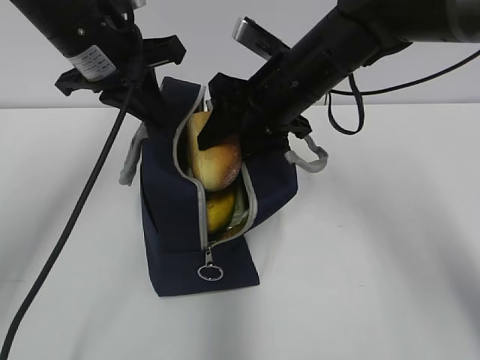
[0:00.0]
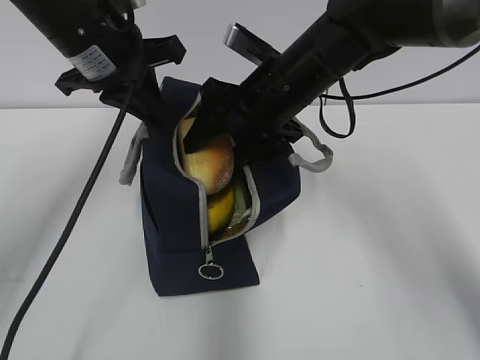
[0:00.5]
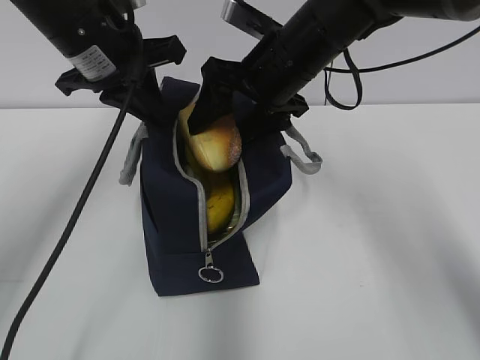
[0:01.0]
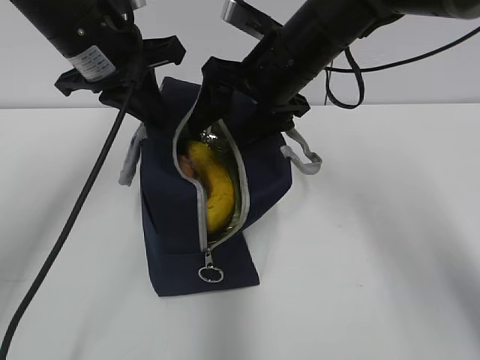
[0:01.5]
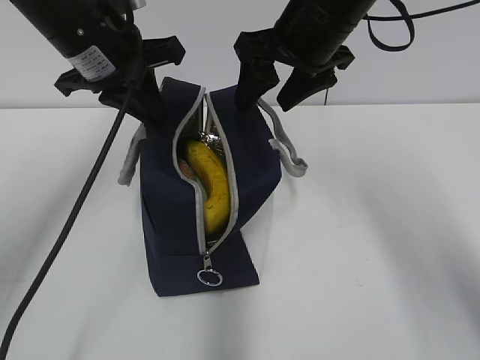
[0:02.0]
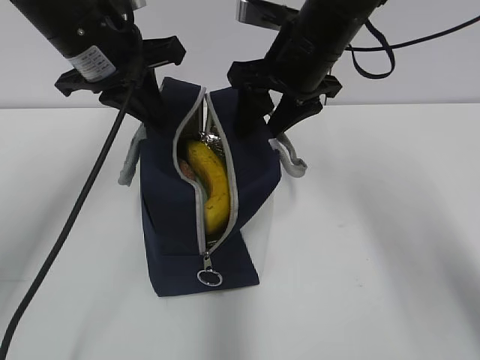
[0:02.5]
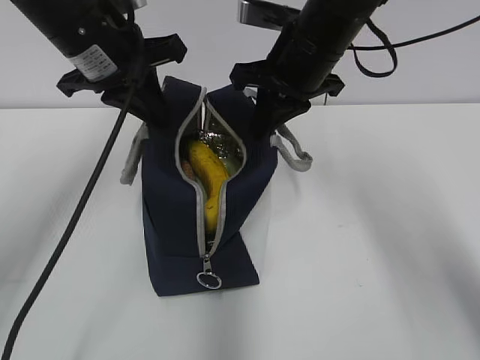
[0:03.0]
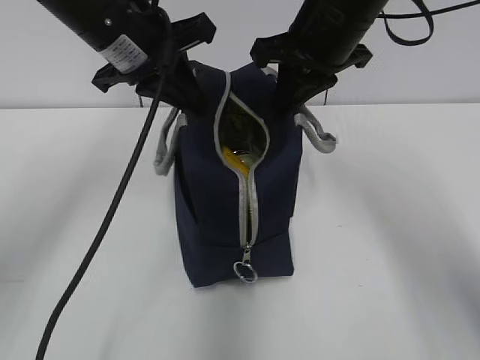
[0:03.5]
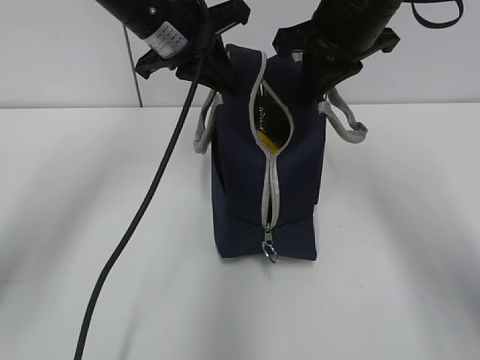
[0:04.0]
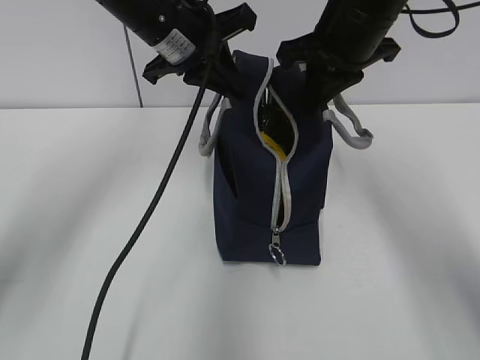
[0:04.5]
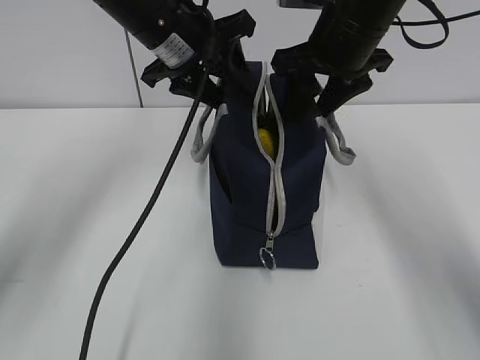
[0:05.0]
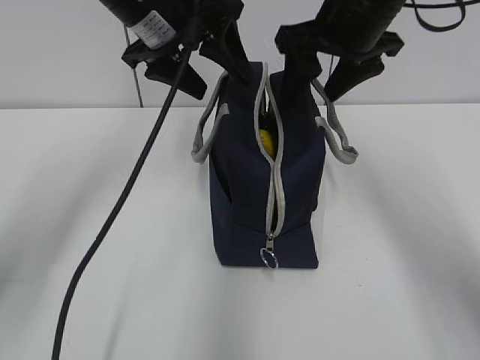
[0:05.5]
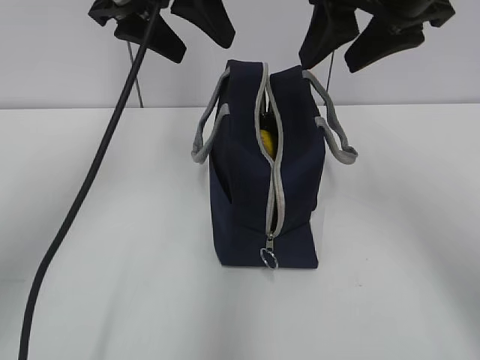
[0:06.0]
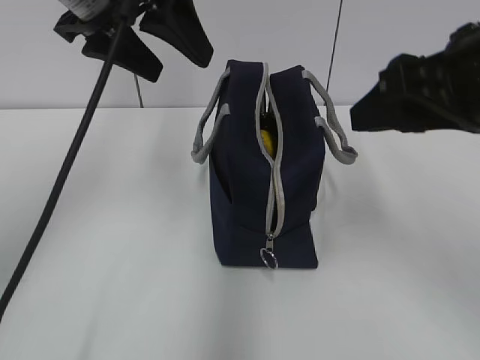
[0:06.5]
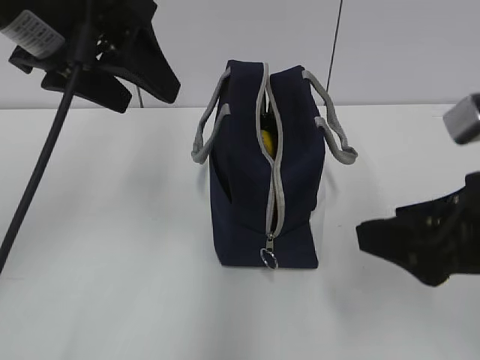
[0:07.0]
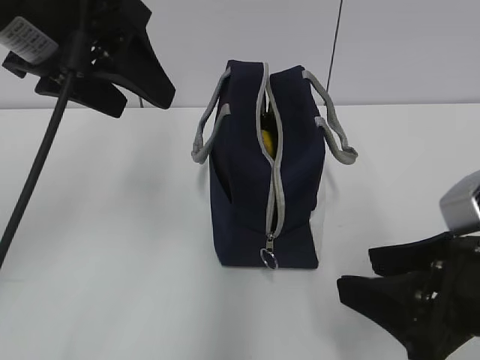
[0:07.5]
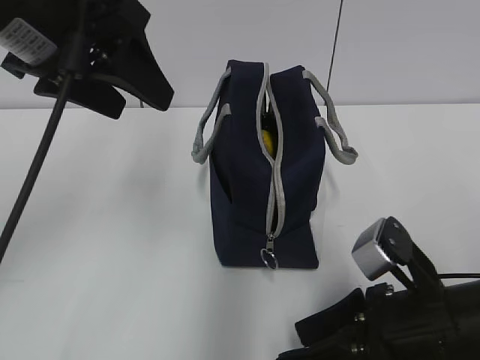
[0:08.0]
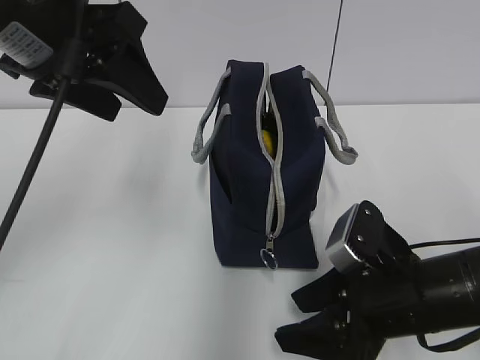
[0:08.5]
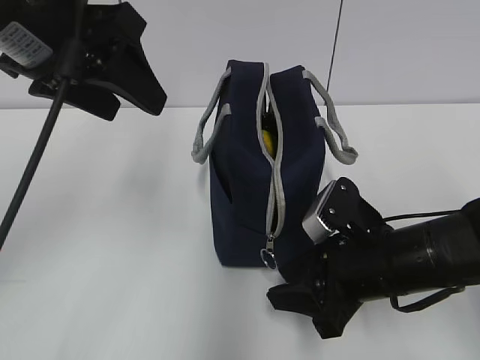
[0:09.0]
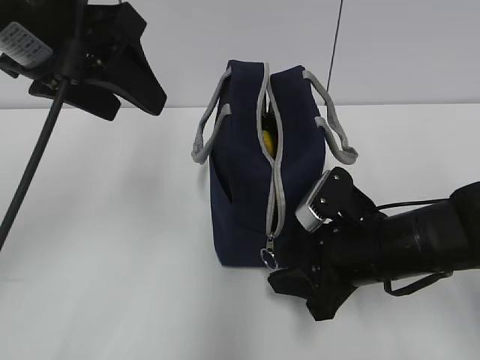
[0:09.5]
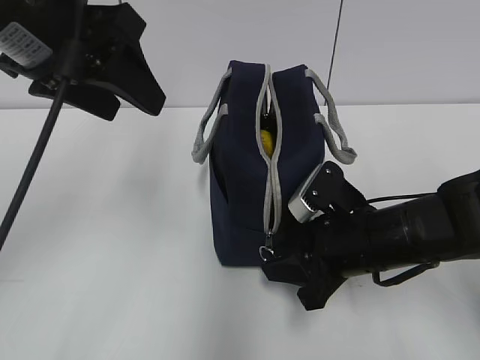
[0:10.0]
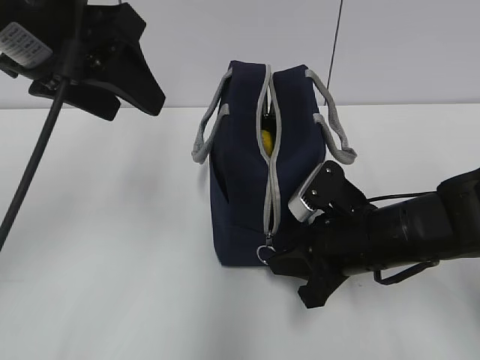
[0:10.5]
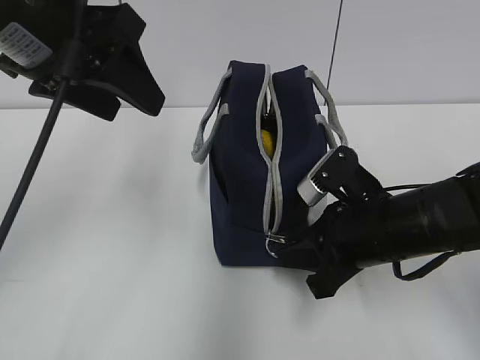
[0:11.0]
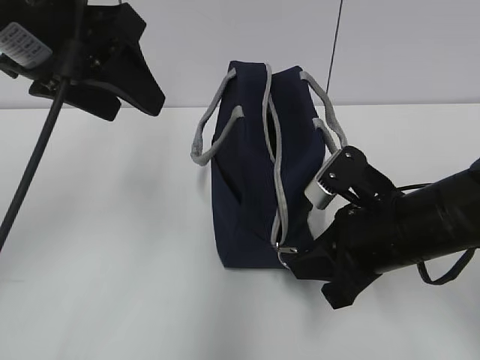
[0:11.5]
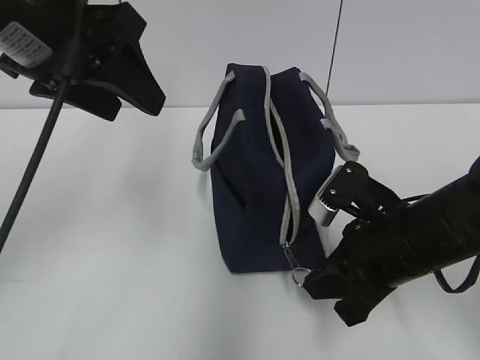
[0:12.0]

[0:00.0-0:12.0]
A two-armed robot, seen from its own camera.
Step, 0:02.0 to 0:03.0: Grab the lunch bag with your right hand.
Step, 0:03.5 to 0:05.0: Move the lunch bag to the right.
0:00.0 to 0:02.0: The right gripper is displaced upward by some 5 cm.
0:02.0 to 0:04.0: The left gripper goes some 5 cm to the right. Meanwhile the right gripper closes its fingers.
0:04.0 to 0:06.0: The right gripper is displaced backward by approximately 5 cm, and opens its fingers; the left gripper goes some 5 cm upward, and opens its fingers.
0:06.0 to 0:08.0: The left gripper moves backward, approximately 10 cm; the right gripper travels downward and backward by about 30 cm.
0:08.0 to 0:10.0: The right gripper moves forward, roughly 10 cm, and closes up.
0:10.0 to 0:12.0: There are only small adjustments of the grippers.

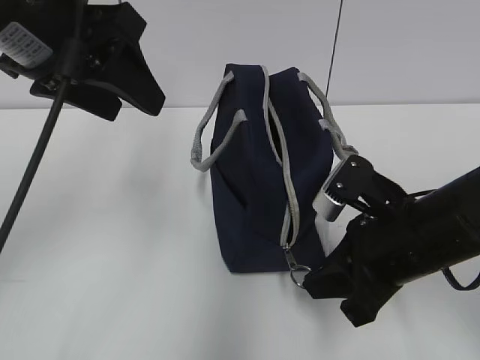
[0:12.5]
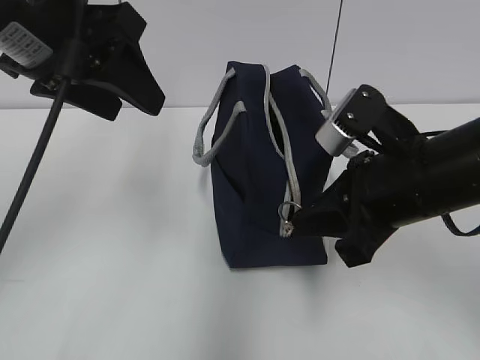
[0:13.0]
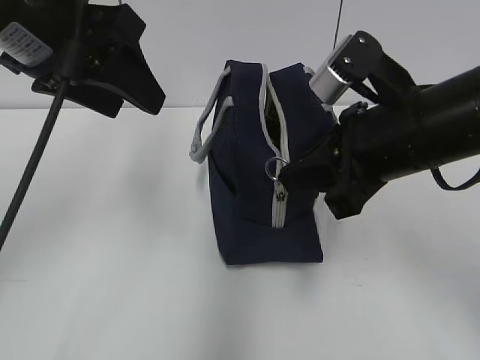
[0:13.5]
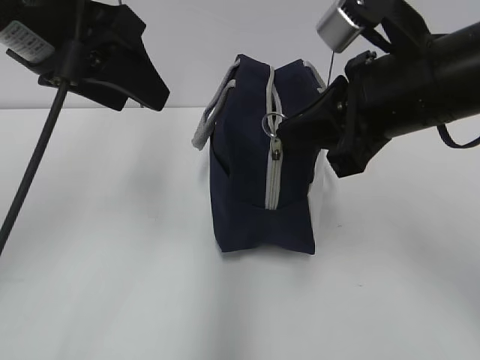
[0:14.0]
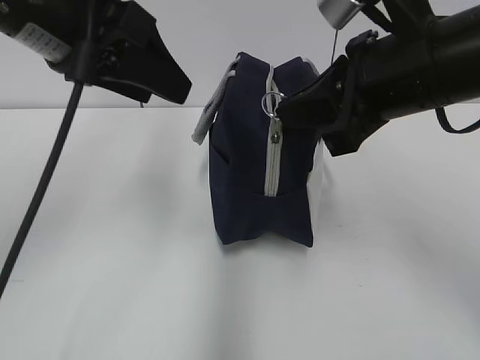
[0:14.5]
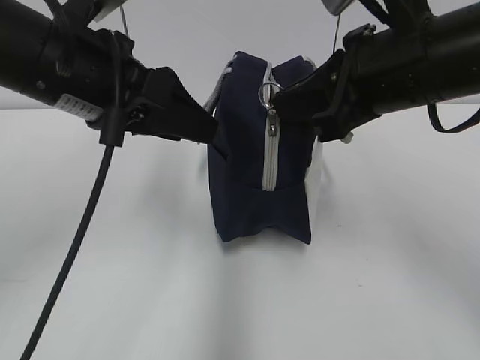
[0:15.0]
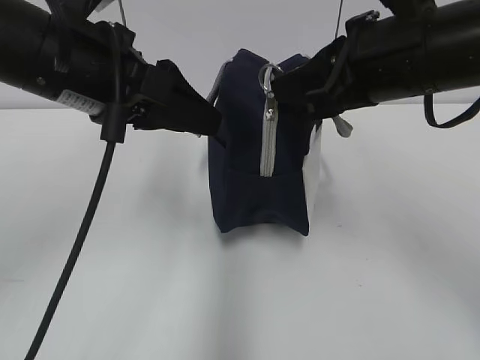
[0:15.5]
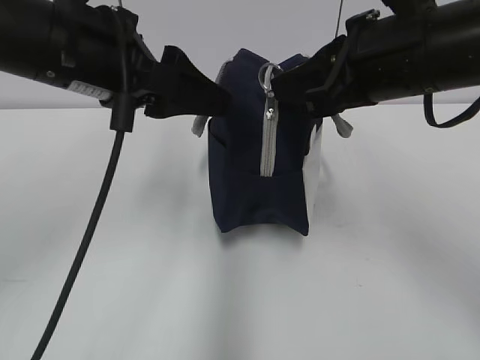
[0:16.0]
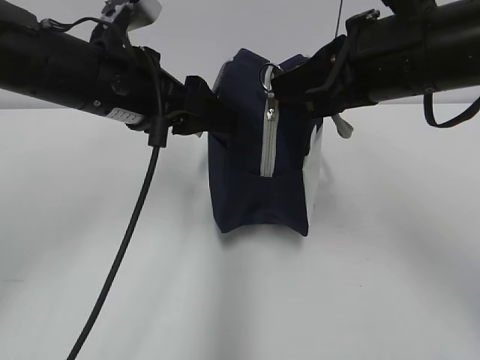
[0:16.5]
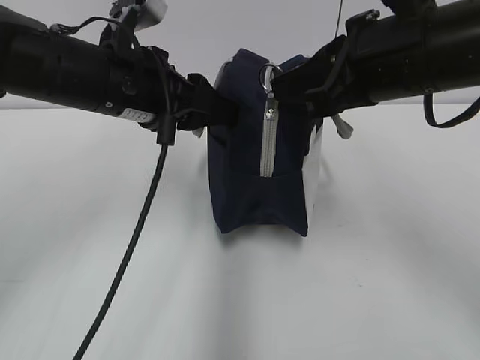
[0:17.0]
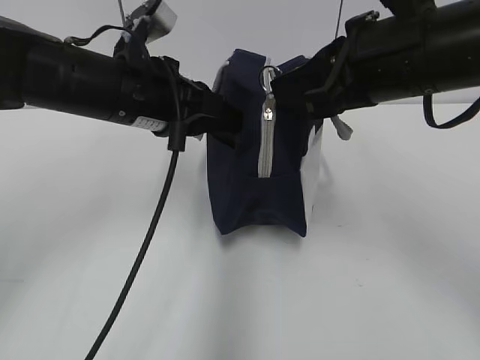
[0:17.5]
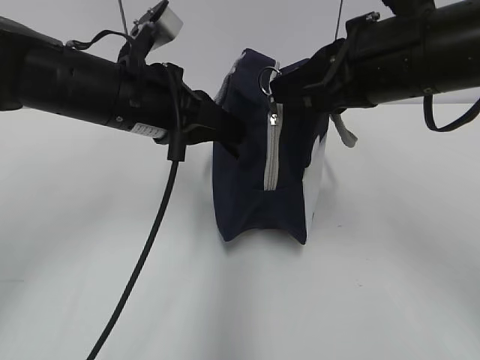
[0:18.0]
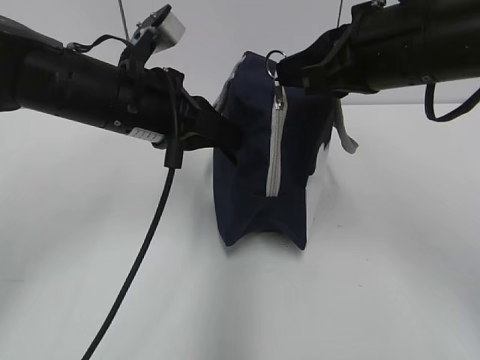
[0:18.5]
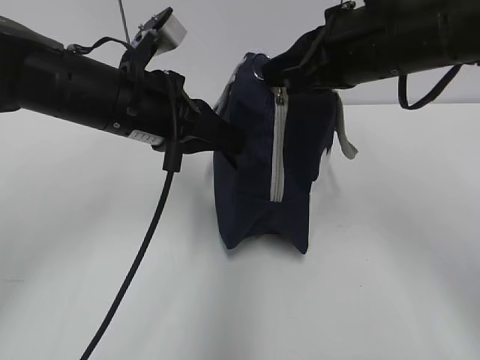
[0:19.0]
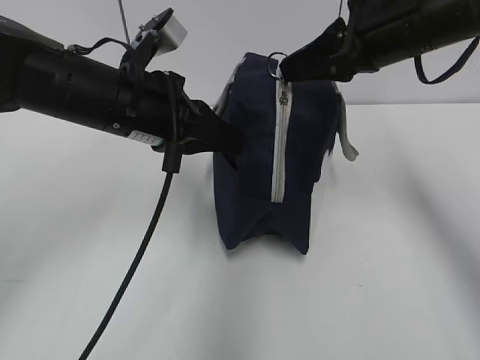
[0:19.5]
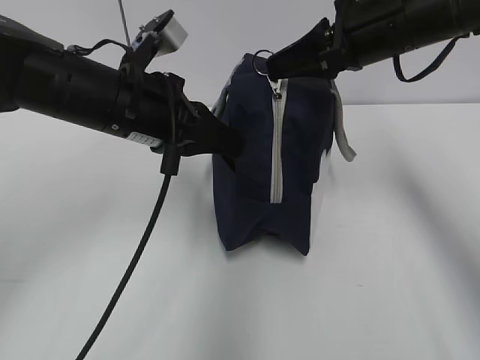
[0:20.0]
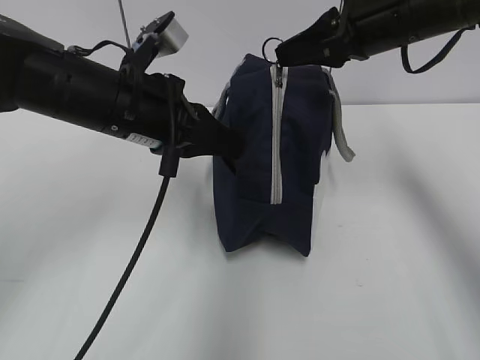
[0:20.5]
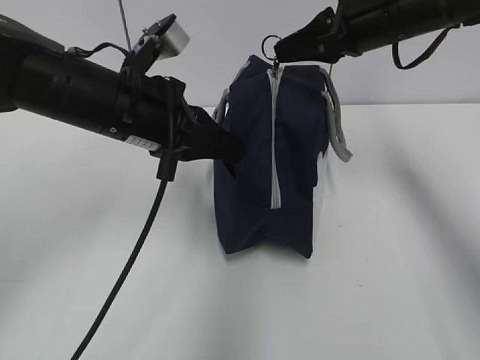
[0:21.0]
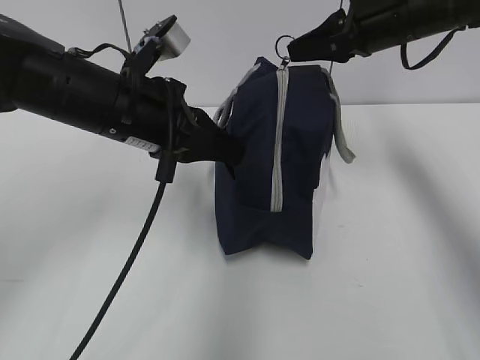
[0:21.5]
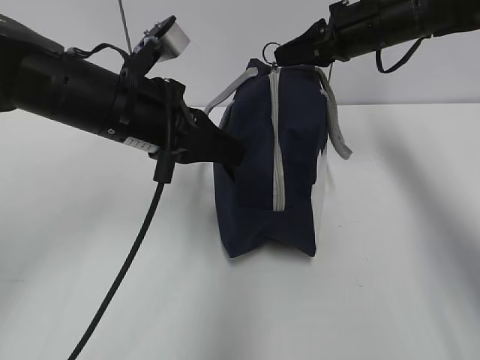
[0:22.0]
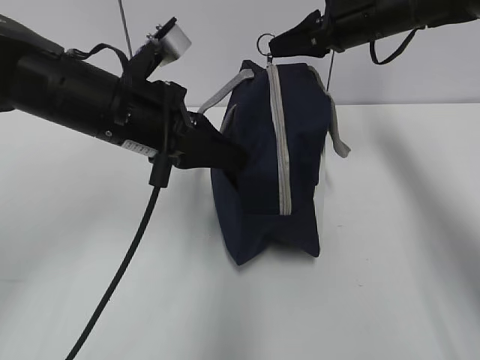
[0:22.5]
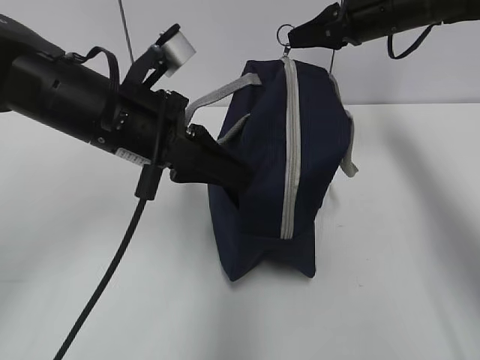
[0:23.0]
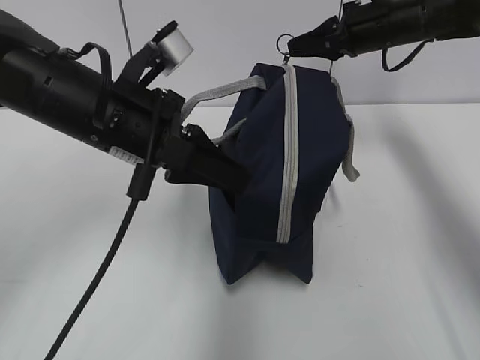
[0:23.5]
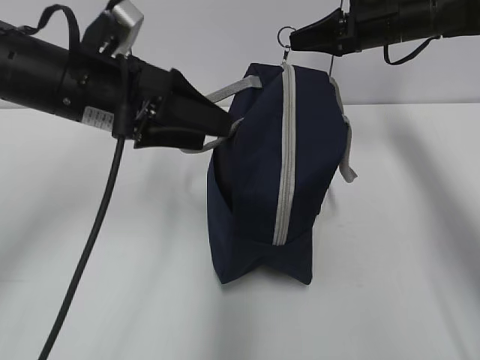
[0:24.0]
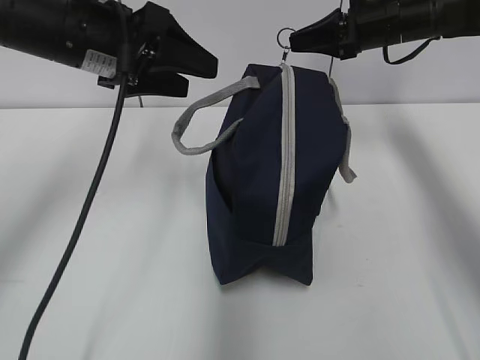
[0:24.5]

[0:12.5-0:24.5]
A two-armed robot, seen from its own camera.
Step, 0:12.5 to 0:23.5: Grab the lunch bag with your left hand.
0:12.5 to 0:14.5: The right gripper shifts roughly 15 cm upward.
0:14.5 to 0:16.5: The left gripper travels downward by about 10 cm.
0:16.5 to 0:18.5: The left gripper closes up.
0:18.5 to 0:20.5: The right gripper is displaced forward by roughly 10 cm.
0:20.5 to 0:22.5: The right gripper goes about 10 cm forward.
0:22.5 to 0:24.5: The left gripper goes some 5 cm forward and upward, and opens up.

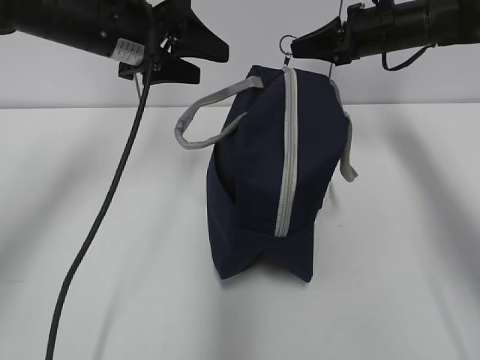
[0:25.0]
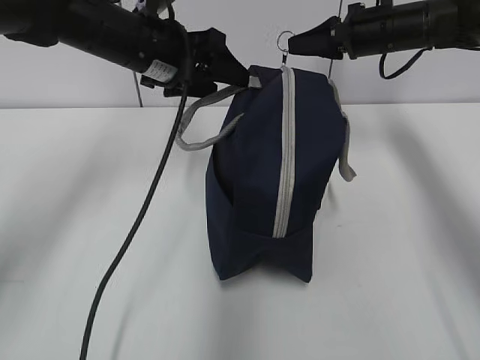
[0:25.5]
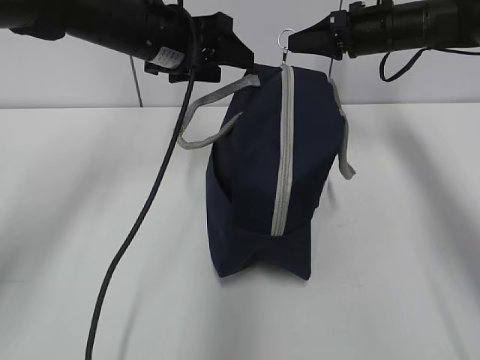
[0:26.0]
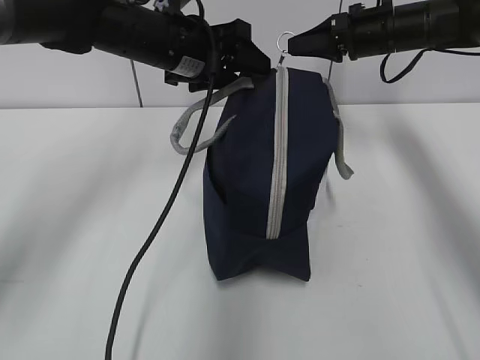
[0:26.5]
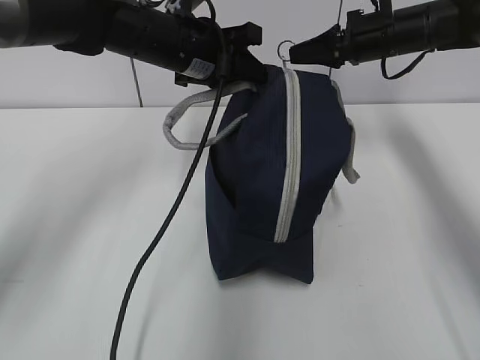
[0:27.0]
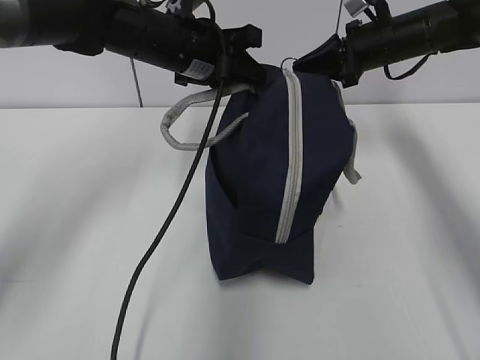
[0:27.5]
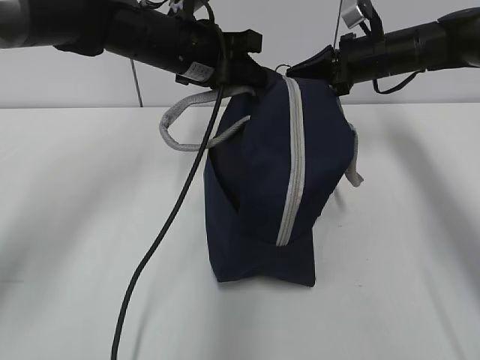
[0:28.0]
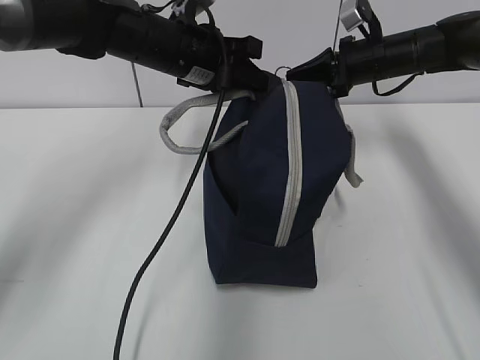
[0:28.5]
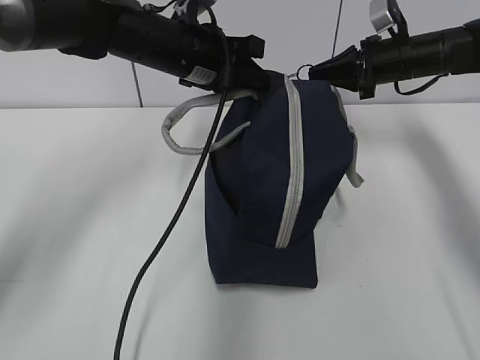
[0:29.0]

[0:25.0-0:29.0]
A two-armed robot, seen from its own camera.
0:25.0 to 0:27.0: The left gripper goes about 5 cm to the right, and closes its fingers.
0:27.0 to 0:29.0: The right gripper shifts by approximately 5 cm.
